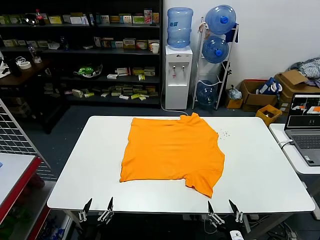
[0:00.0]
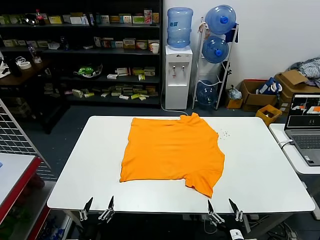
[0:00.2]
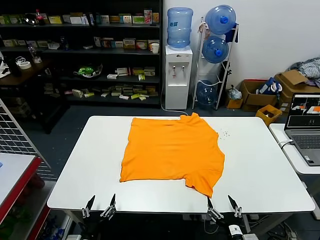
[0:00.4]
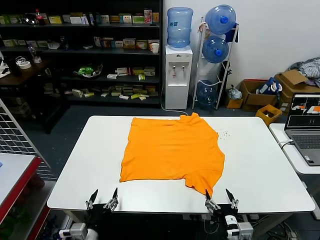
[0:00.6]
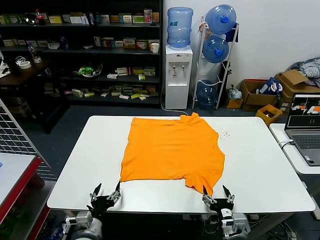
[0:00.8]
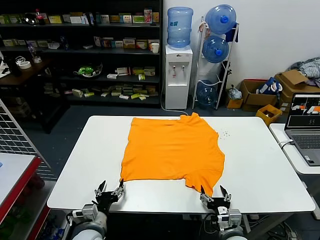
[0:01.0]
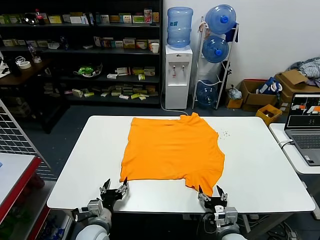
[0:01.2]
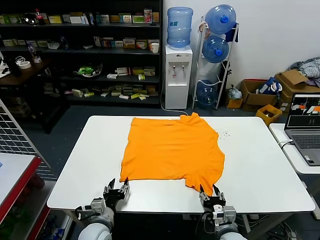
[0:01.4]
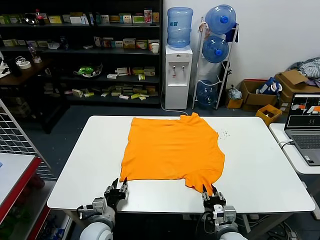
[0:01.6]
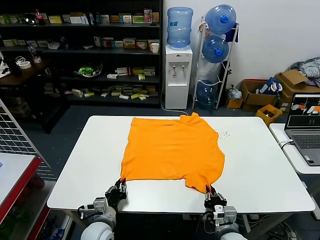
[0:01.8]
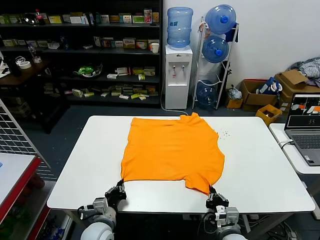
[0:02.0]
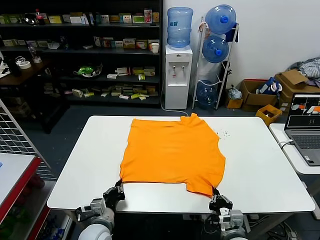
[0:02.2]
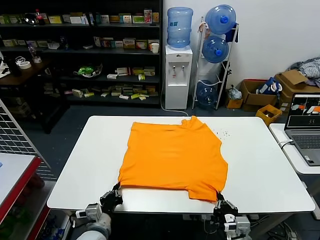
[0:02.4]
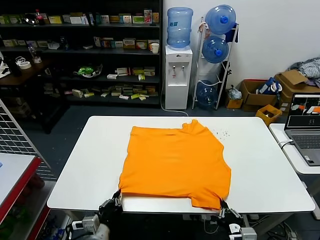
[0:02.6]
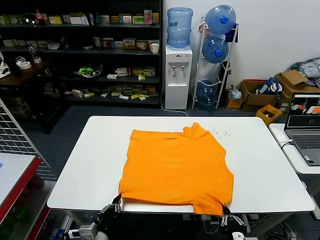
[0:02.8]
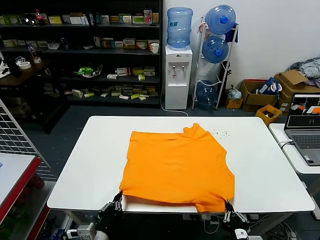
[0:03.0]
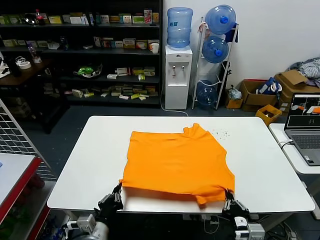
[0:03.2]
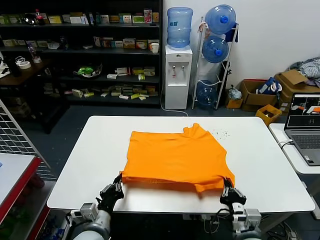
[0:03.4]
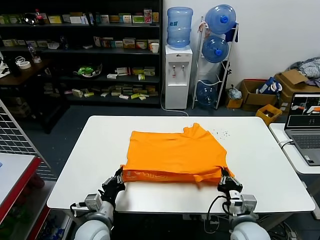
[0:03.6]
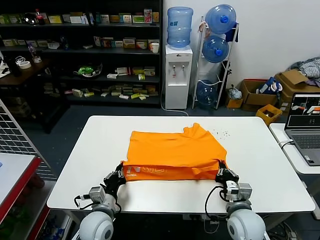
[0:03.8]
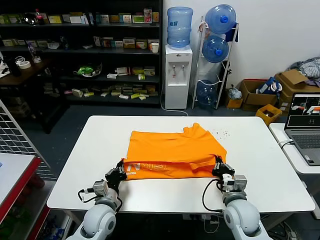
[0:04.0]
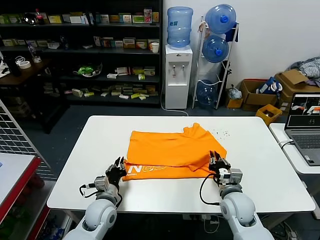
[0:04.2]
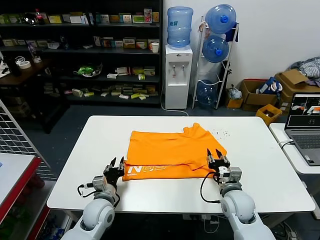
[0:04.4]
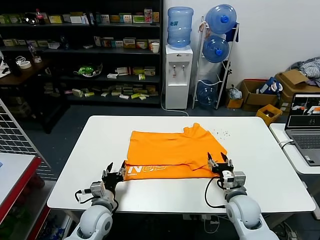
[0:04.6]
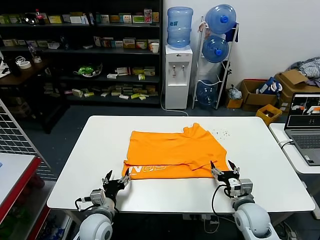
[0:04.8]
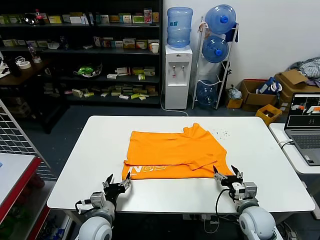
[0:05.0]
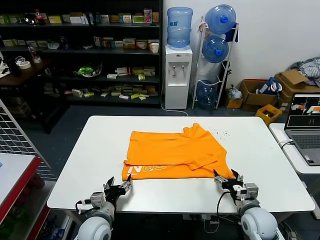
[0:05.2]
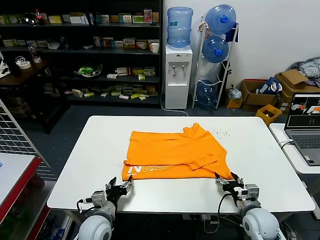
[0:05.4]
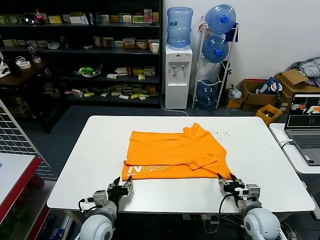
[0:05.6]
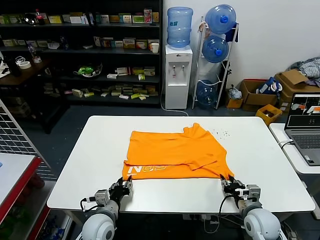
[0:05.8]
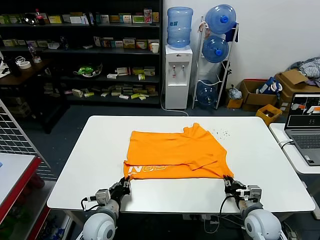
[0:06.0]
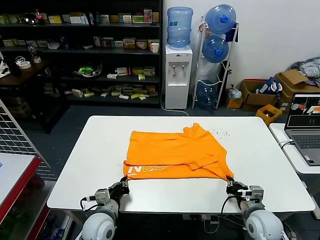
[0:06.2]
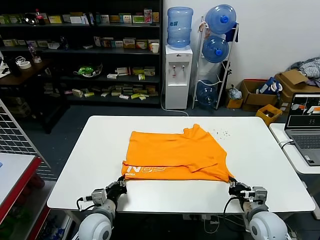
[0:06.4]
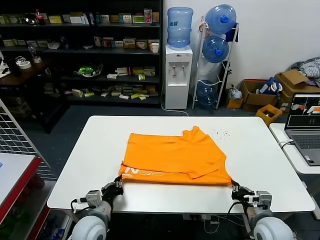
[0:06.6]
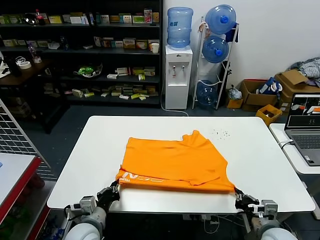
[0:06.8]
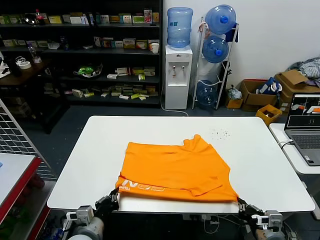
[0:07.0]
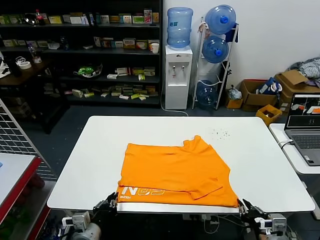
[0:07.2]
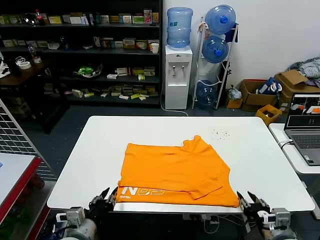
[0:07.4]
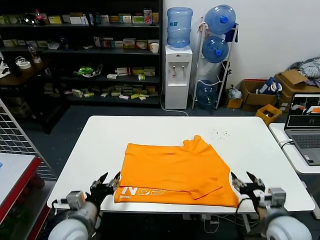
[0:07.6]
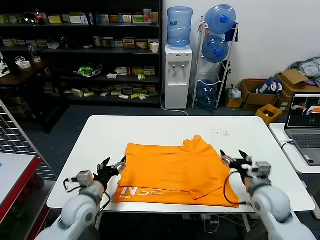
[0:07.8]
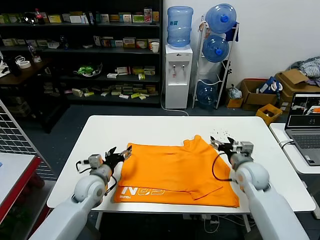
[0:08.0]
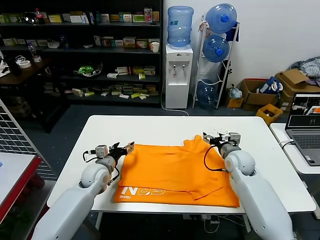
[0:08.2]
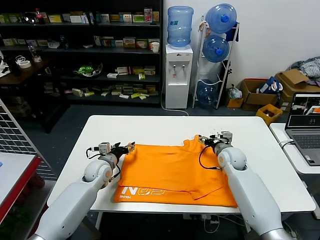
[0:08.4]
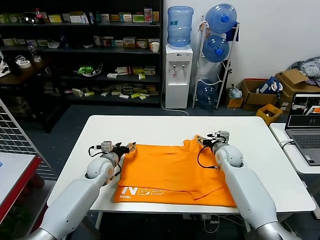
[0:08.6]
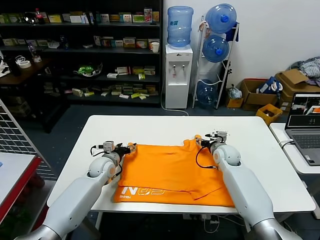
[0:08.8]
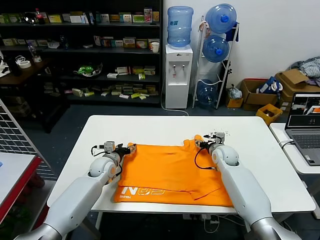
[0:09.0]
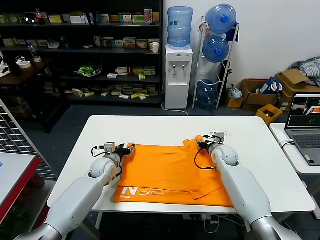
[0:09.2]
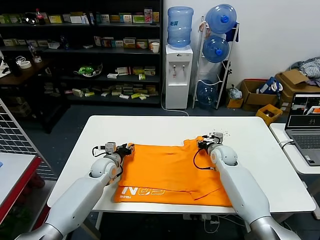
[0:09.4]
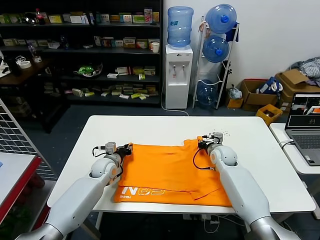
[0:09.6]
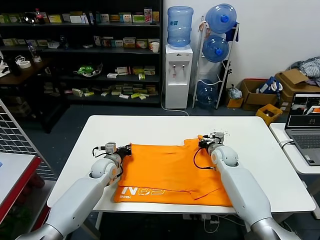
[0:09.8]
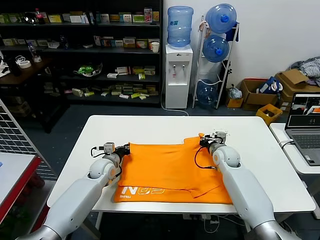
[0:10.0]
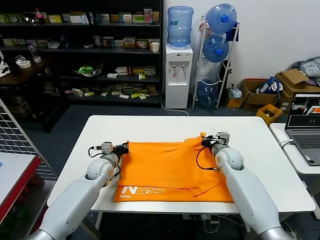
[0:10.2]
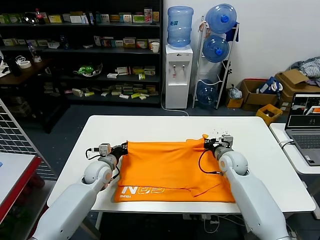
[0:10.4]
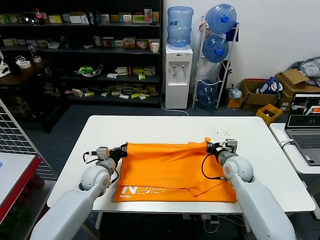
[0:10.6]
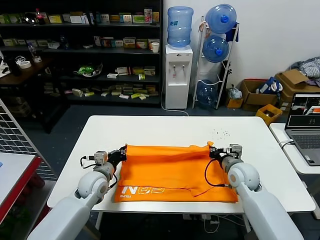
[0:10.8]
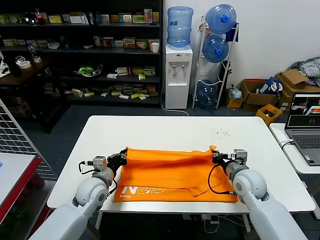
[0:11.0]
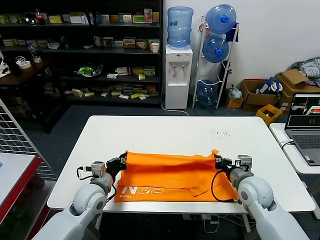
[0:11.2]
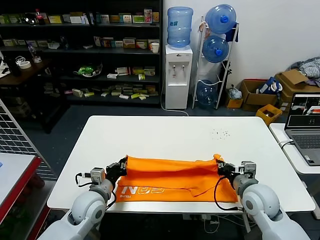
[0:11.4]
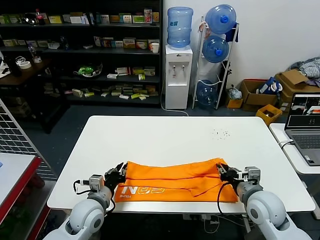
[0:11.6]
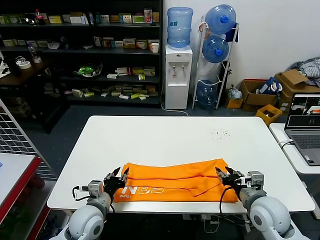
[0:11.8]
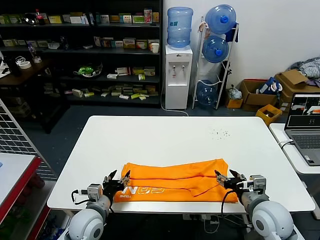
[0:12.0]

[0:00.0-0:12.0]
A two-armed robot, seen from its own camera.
Task of the whole recording: fold and organize the clothes.
Step, 0:00.0 to 0:02.0: use both grippers simultaneously to clamp the lower edge of the clothing fabric.
Step, 0:02.2 to 0:04.6: use both grippers to drag the lower edge of the fabric forward and fold it over the upper edge.
Step, 0:04.8 to 0:07.4: Drag the clothes downward with both gripper.
Step, 0:07.6 to 0:09.8: use both grippers simultaneously to clamp the upper edge of the clothing fabric.
0:01.6 to 0:03.0: Both grippers move backward and upward, approximately 10 cm. The left gripper closes its fingers.
0:03.0 to 0:04.4: The grippers both shift forward by some 20 cm. The right gripper opens. Meanwhile the left gripper opens up.
0:04.4 to 0:06.0: The left gripper opens, then closes once more. Meanwhile the right gripper travels to the right and backward by approximately 10 cm, and closes.
0:06.0 to 0:07.6: The two grippers go approximately 10 cm upward. The right gripper moves approximately 10 cm backward and comes back, and opens up. Meanwhile the left gripper opens its fingers.
0:07.6 to 0:09.0: Both grippers travel together forward, about 25 cm.
0:09.0 to 0:10.4: The left gripper closes its fingers. Meanwhile the right gripper travels backward by approximately 5 cm, and closes up.
0:10.4 to 0:12.0: The two grippers go approximately 20 cm backward. The right gripper opens, while the left gripper opens up.

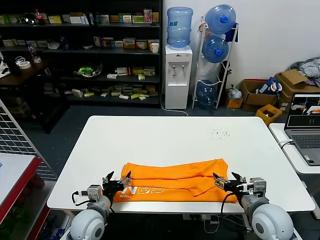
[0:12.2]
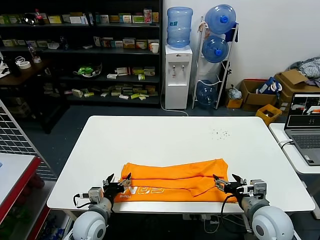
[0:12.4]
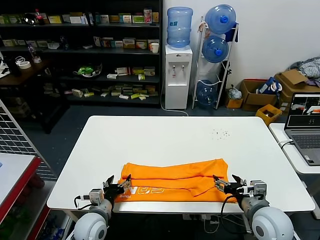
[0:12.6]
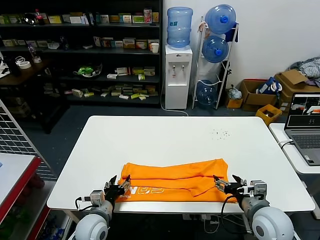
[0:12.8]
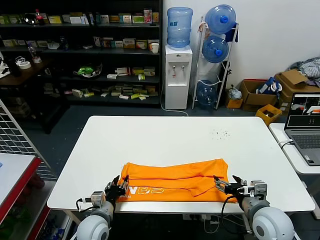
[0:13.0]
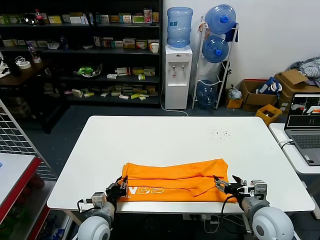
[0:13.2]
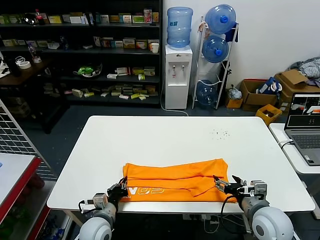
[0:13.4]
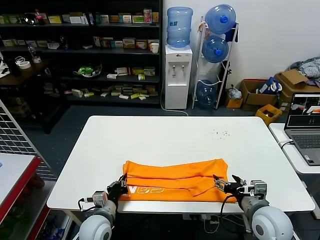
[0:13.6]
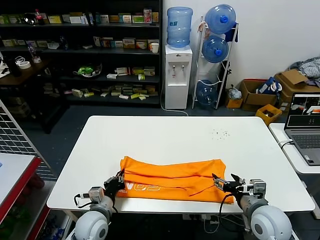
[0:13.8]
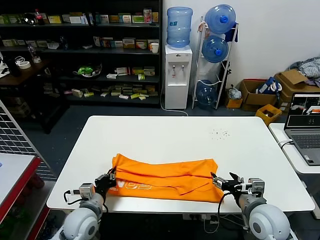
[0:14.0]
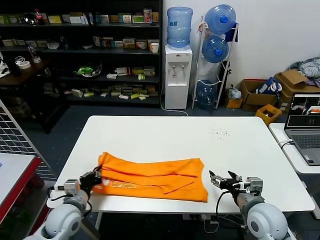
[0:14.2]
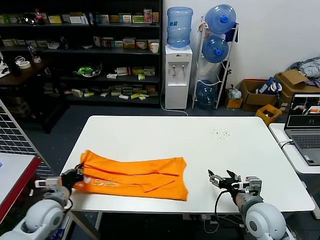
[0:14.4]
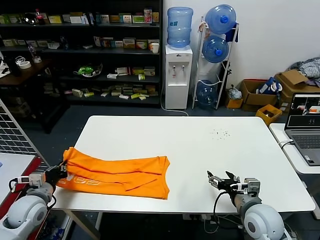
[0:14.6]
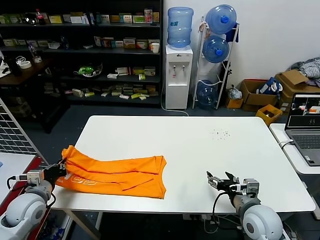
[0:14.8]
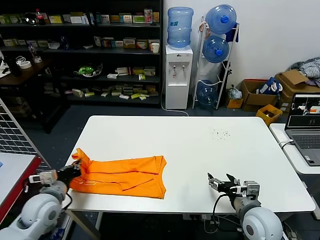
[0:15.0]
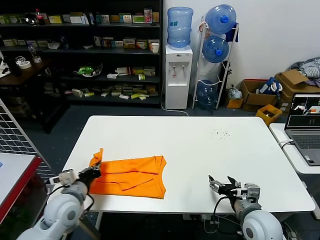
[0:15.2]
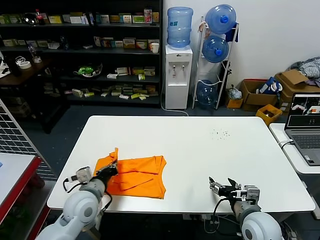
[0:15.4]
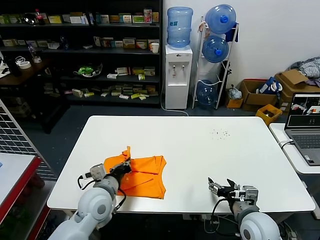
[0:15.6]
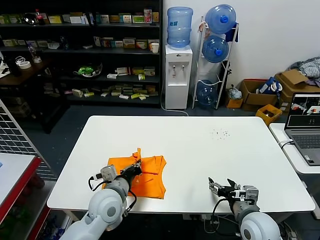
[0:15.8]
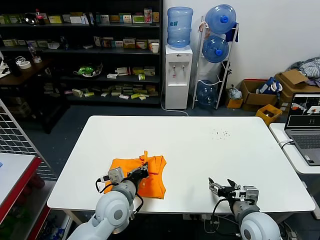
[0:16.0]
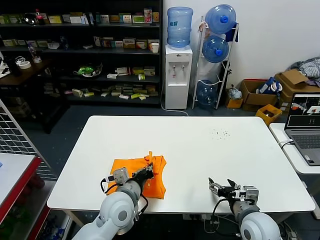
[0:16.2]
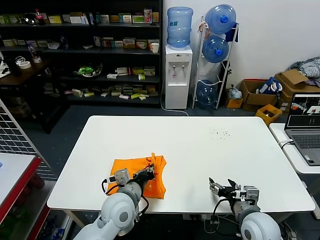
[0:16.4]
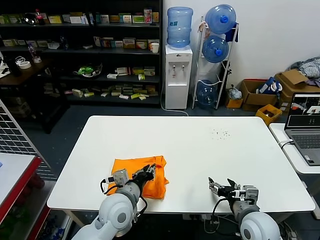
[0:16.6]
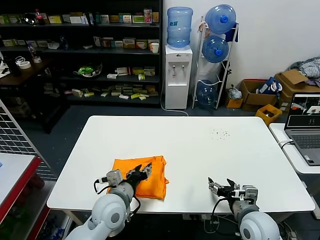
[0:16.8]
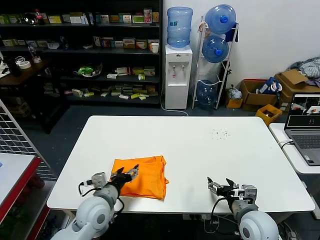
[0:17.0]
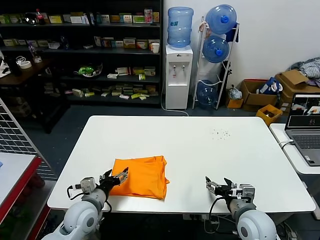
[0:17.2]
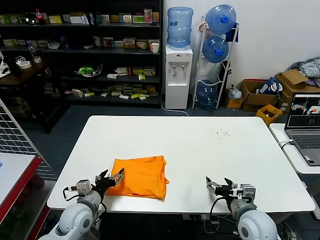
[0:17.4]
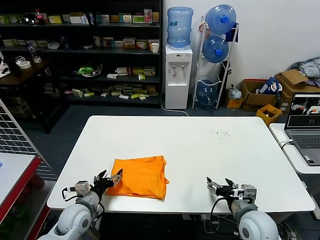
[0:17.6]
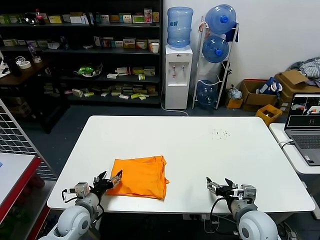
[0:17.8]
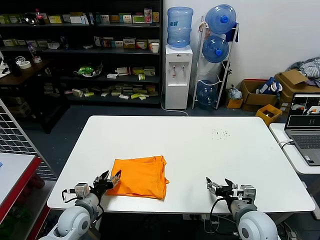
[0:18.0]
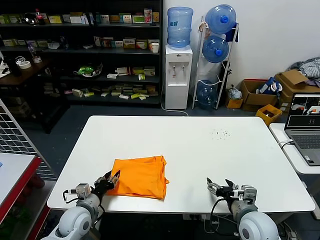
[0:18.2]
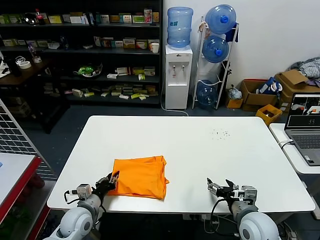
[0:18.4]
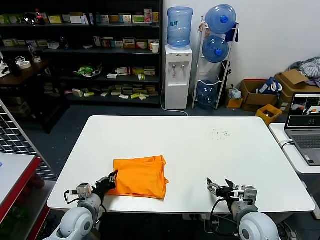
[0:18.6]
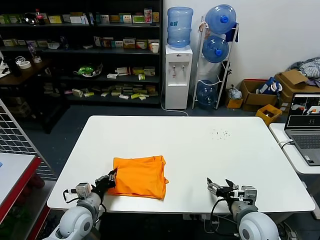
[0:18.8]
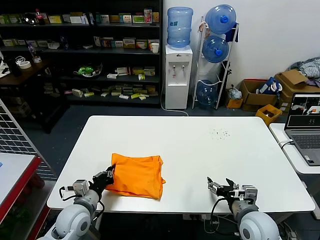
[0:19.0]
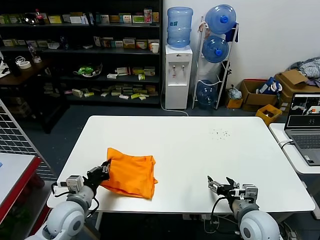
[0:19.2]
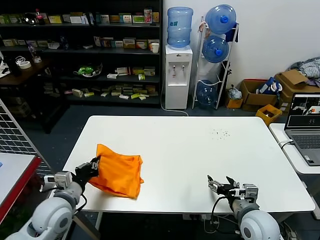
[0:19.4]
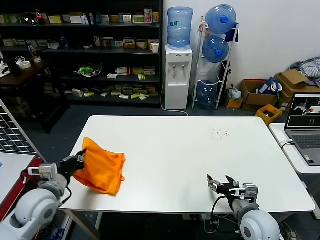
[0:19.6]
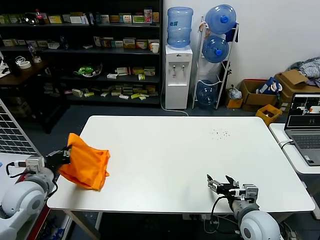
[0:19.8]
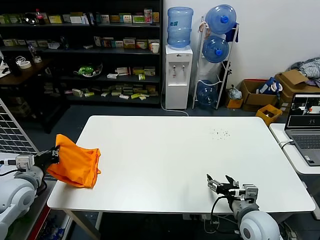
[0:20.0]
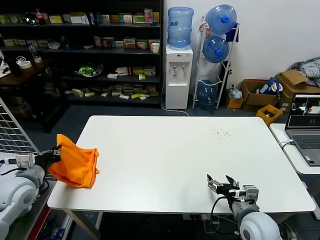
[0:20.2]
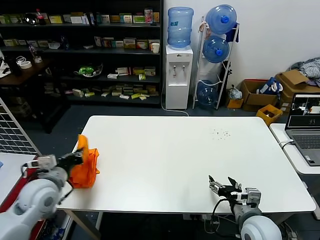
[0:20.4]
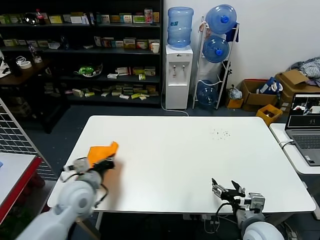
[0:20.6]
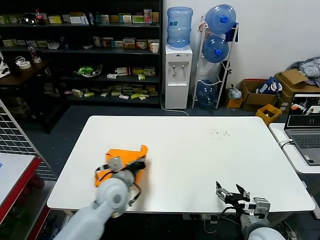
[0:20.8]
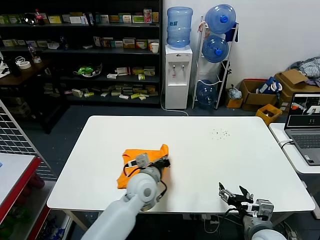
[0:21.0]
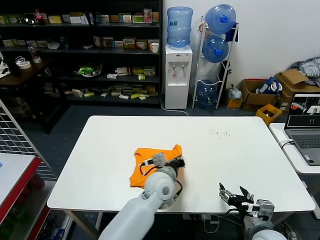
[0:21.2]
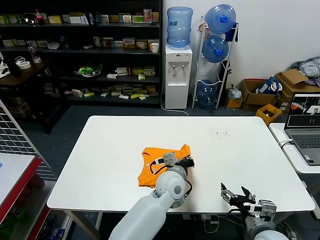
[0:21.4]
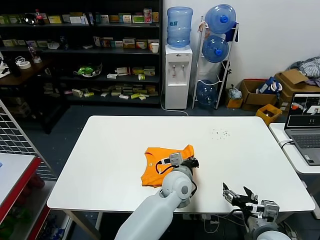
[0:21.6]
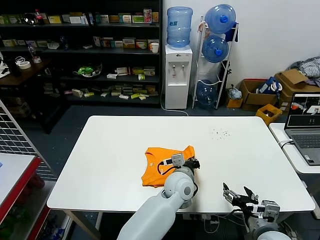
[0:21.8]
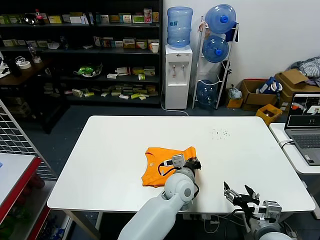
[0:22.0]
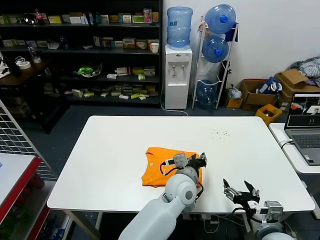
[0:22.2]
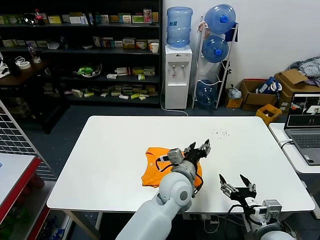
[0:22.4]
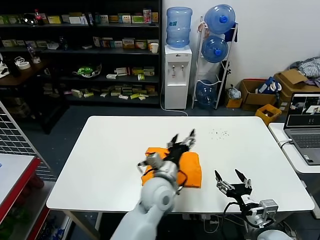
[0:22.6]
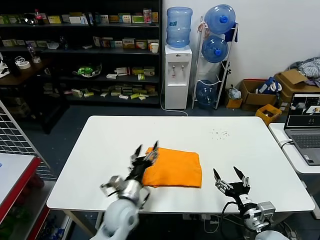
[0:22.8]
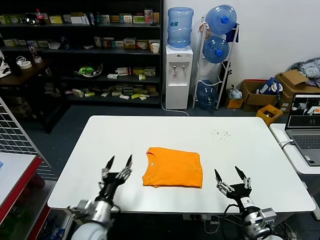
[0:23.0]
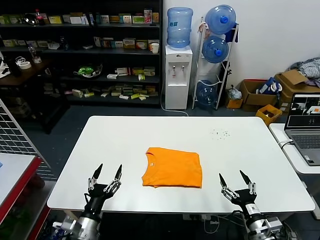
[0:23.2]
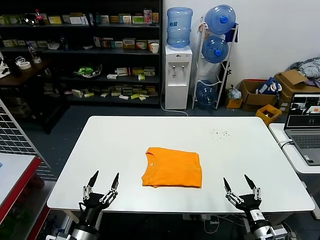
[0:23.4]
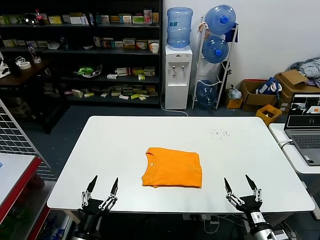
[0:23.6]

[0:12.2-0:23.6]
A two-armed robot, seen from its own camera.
Task of the whole recording: fold and organize the clothes.
Step, 0:12.4 to 0:13.6: use the left gripper to clamp the left edge of the fabric.
Step, 0:13.8 to 0:16.8: use the left gripper to drag the left edge of the fabric to the left and folds it over the right edge.
Step, 0:17.0 to 0:22.4: Flip the folded clothes over with left gripper.
0:12.2 to 0:13.6: The left gripper closes.
0:13.6 to 0:15.0: The left gripper travels to the left and upward by approximately 20 cm.
0:15.0 to 0:16.4: The left gripper shifts about 25 cm to the right.
0:16.4 to 0:17.8: The left gripper moves to the left and downward, approximately 20 cm, and opens.
0:17.8 to 0:19.4: The left gripper is displaced upward by roughly 10 cm, and closes up.
0:19.4 to 0:20.8: The left gripper is displaced to the right and forward by approximately 15 cm.
0:20.8 to 0:22.2: The left gripper heads to the right, covering approximately 20 cm, and opens its fingers.
0:22.2 to 0:23.6: The right gripper shifts about 10 cm downward; the left gripper goes some 40 cm to the left and backward, and opens its fingers.
